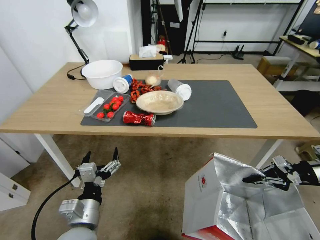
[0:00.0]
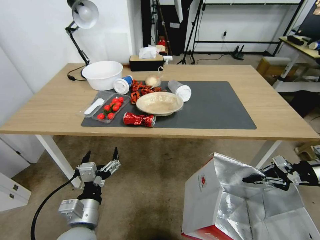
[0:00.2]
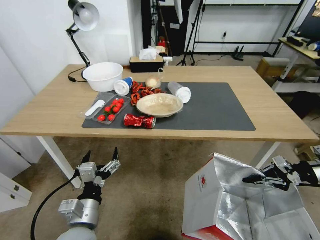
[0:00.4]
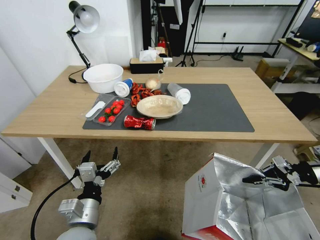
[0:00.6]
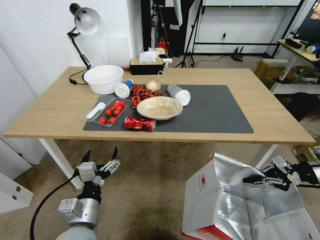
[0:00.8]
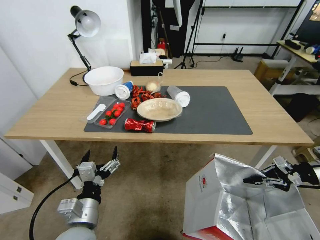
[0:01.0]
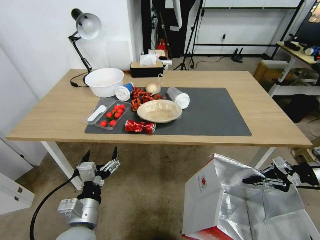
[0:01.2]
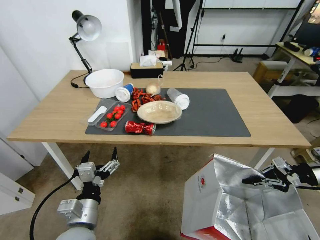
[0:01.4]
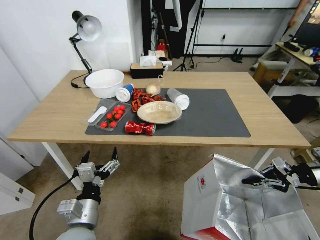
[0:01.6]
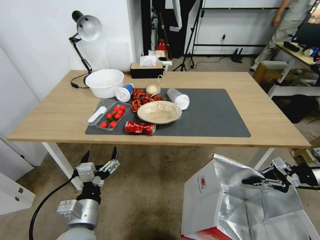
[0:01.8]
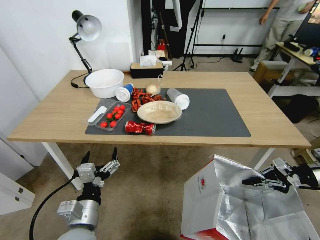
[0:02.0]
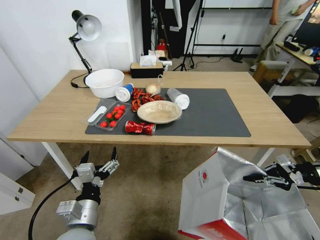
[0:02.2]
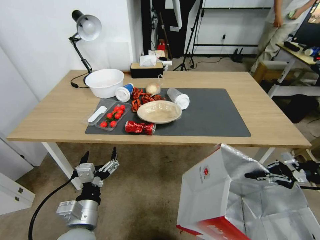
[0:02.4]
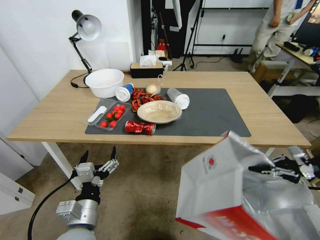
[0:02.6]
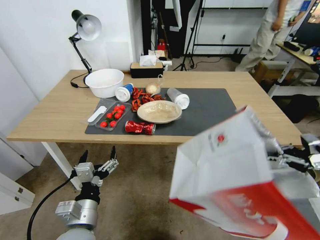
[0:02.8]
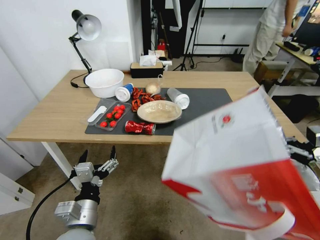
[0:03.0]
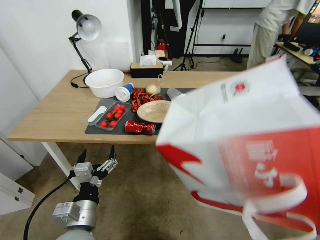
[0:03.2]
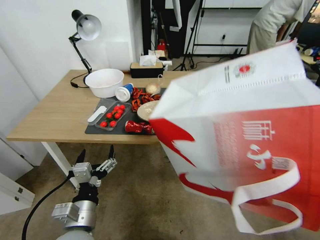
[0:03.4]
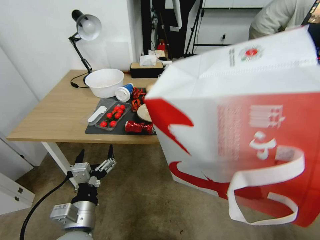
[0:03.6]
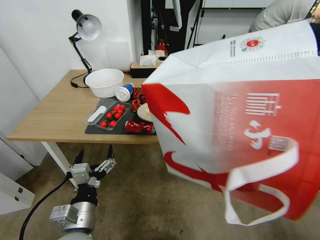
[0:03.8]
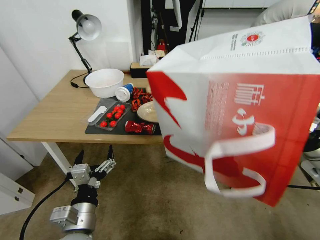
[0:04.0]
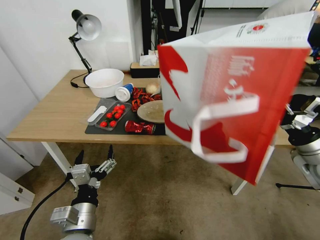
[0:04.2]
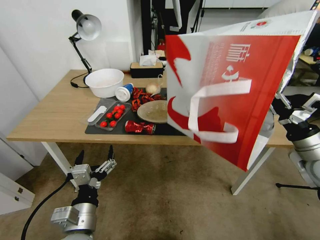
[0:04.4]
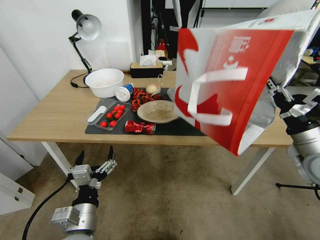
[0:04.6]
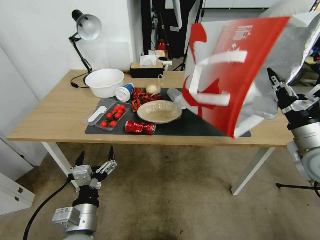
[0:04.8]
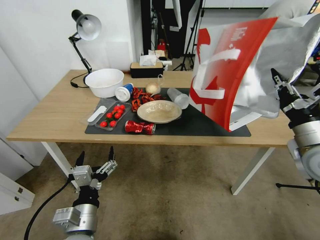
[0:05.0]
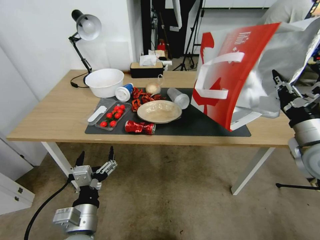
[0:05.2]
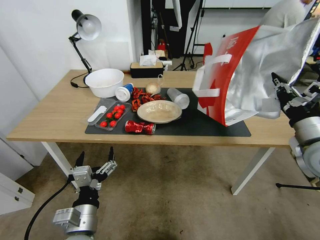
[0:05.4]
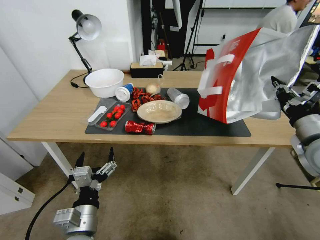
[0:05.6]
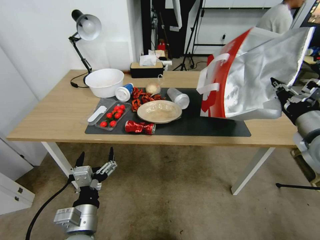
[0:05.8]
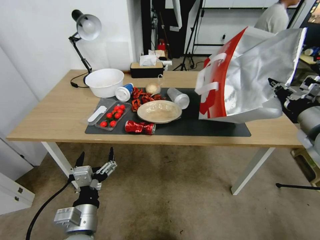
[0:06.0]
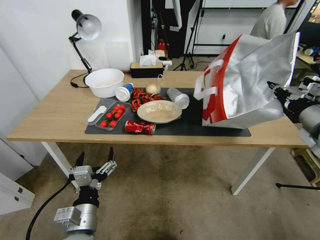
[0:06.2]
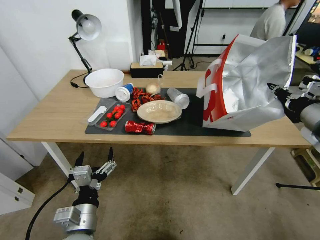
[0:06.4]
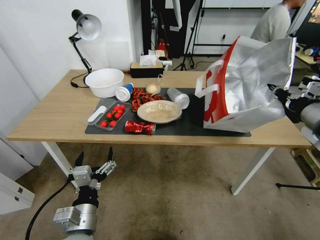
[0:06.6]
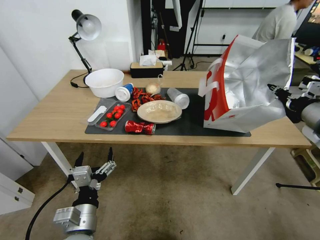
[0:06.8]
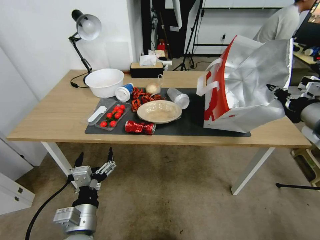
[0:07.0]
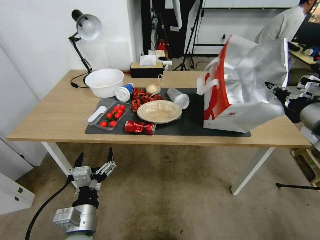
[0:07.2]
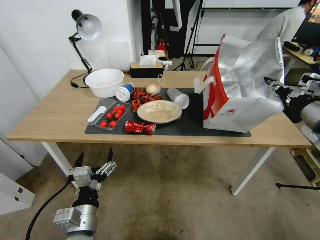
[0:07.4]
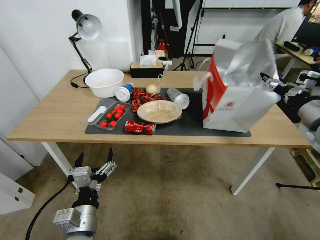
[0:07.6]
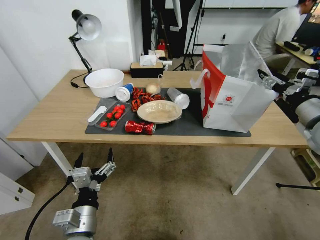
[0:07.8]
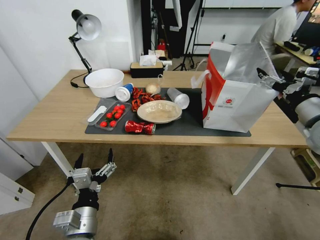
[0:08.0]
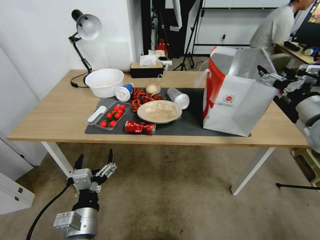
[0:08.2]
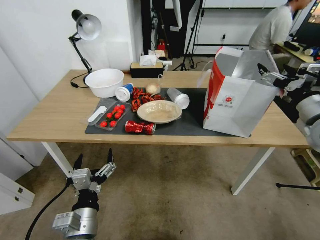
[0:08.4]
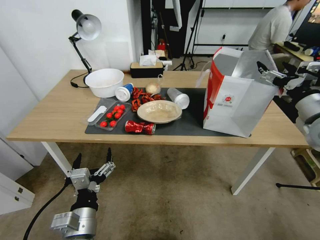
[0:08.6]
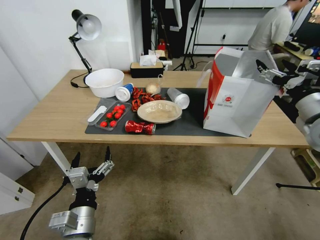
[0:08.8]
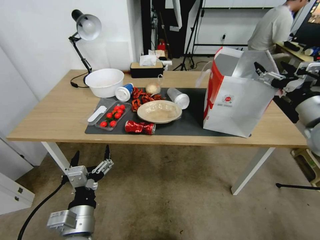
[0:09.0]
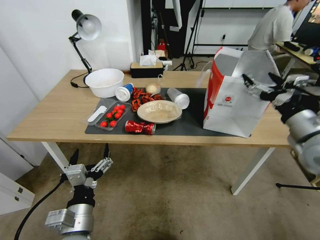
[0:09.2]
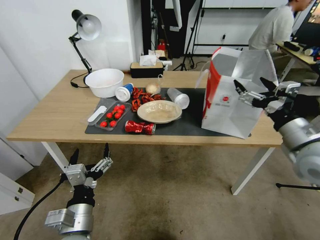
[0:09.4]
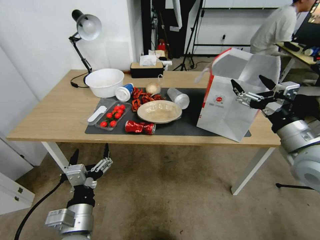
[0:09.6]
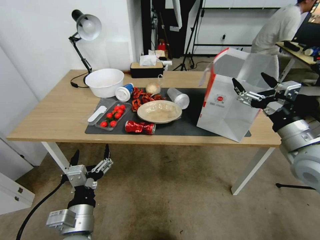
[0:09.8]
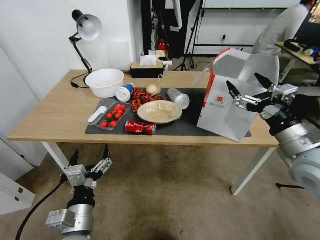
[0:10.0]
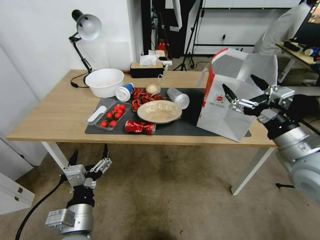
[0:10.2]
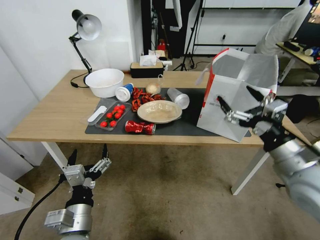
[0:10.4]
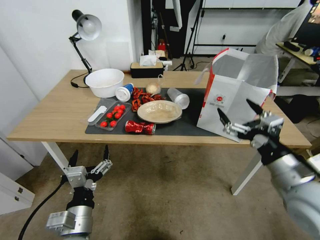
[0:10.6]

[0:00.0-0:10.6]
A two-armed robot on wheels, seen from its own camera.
Task of the whole recording: Pick up the food delivery bag from the floor and place it on the table.
0:03.0 to 0:04.6: The right gripper goes some 15 cm to the left.
0:04.6 to 0:06.0: The right gripper moves upward, some 10 cm.
0:06.0 to 0:07.6: The right gripper opens its fingers.
0:07.6 to 0:09.0: The right gripper opens.
0:09.0 to 0:10.6: The right gripper shifts some 15 cm backward, to the left and downward.

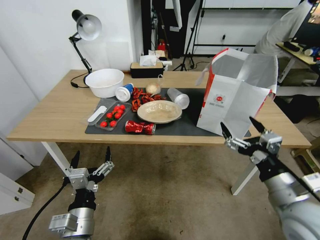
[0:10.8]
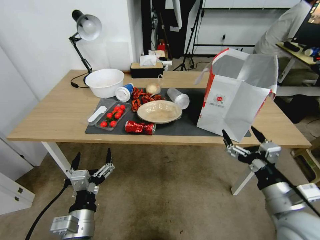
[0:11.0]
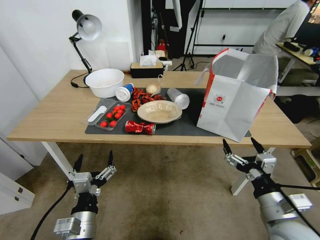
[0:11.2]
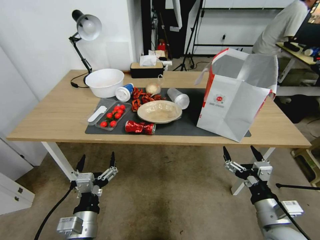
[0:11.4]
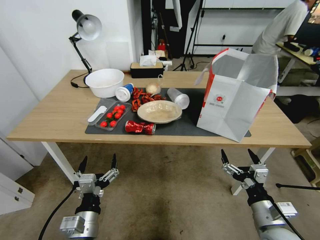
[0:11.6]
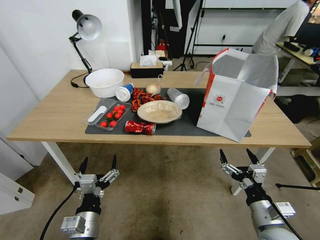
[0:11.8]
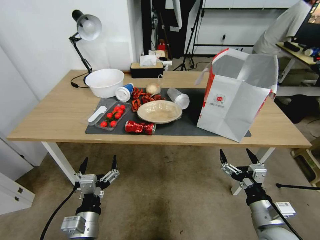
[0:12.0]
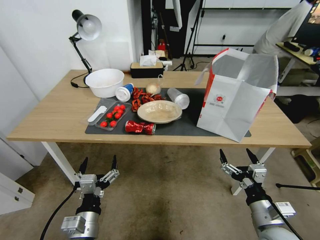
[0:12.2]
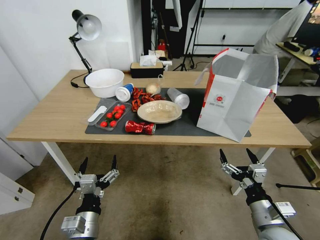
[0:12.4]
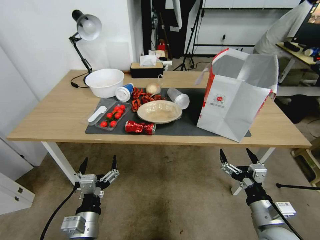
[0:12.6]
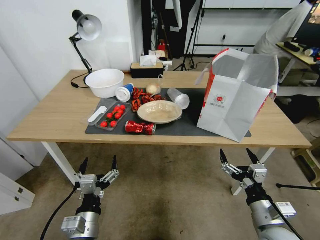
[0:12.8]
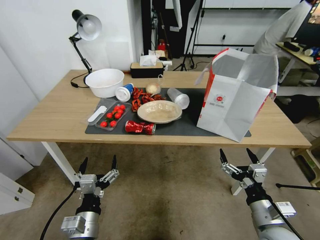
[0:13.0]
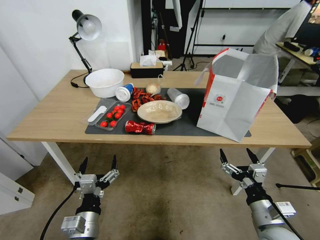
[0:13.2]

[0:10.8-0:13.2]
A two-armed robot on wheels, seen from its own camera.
Task of the whole recording: Pick up the food delivery bag from the floor and place it on the table.
0:10.8 to 0:12.0: The right gripper is displaced downward by approximately 10 cm.
0:12.0 to 0:13.2: The two grippers keep their place.

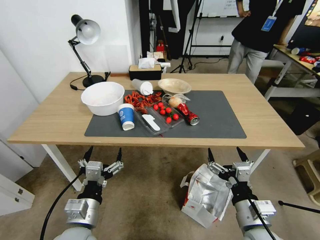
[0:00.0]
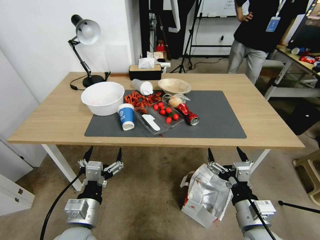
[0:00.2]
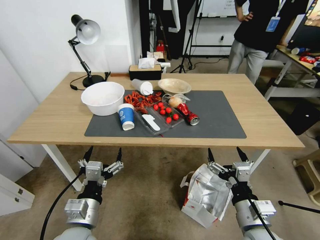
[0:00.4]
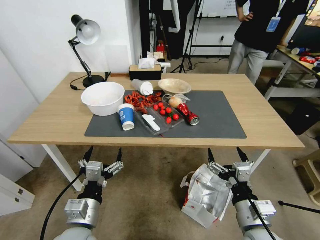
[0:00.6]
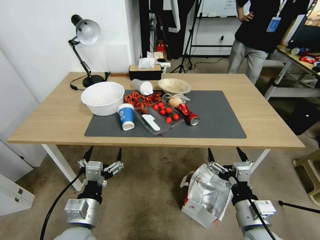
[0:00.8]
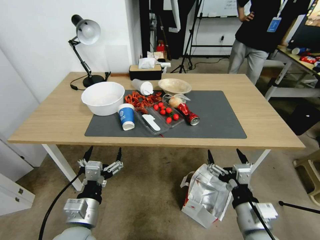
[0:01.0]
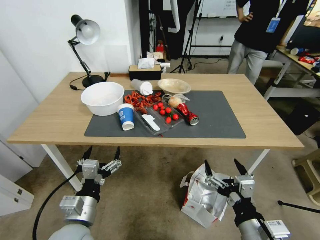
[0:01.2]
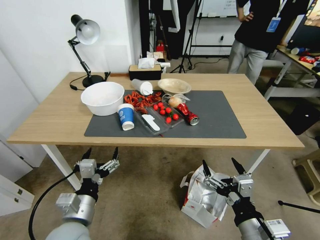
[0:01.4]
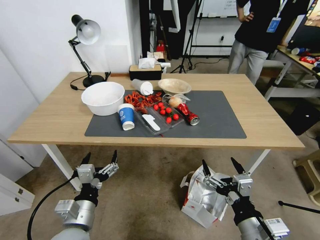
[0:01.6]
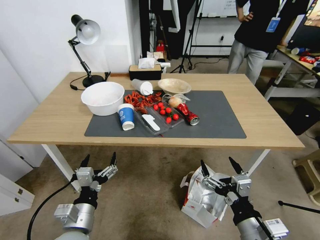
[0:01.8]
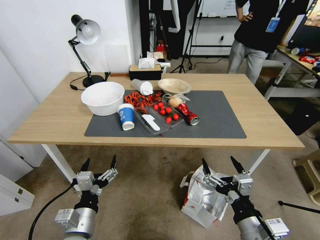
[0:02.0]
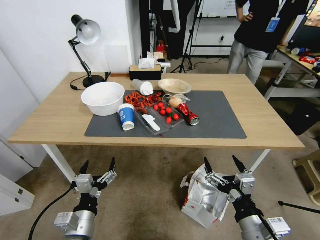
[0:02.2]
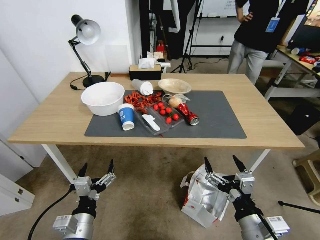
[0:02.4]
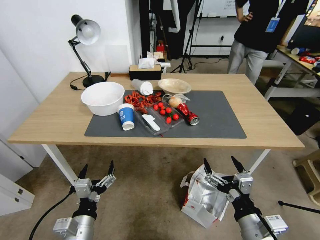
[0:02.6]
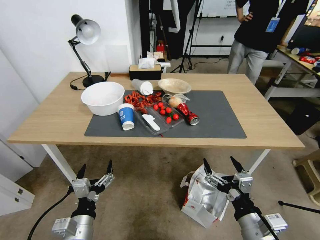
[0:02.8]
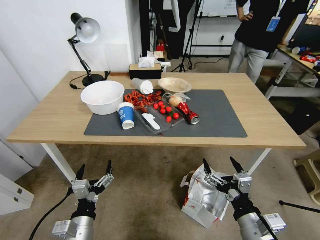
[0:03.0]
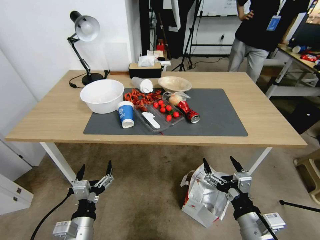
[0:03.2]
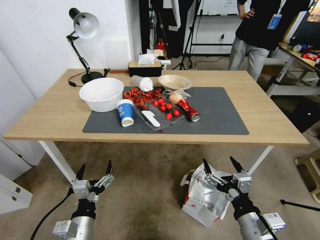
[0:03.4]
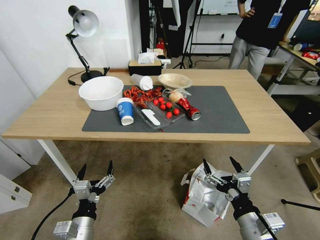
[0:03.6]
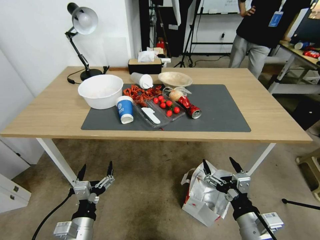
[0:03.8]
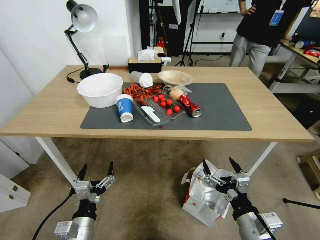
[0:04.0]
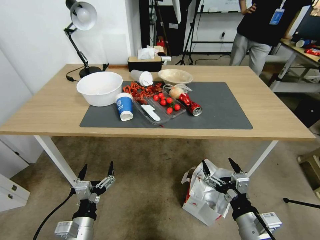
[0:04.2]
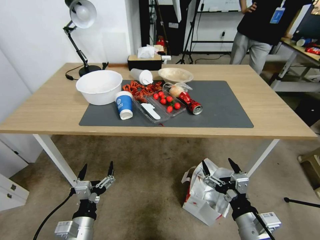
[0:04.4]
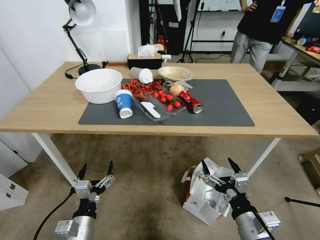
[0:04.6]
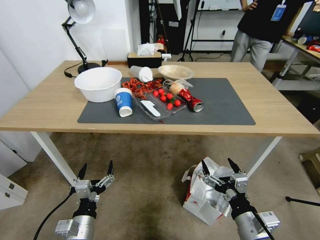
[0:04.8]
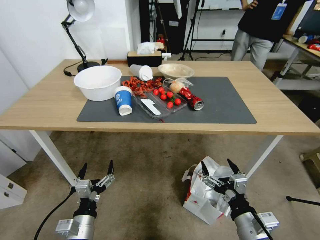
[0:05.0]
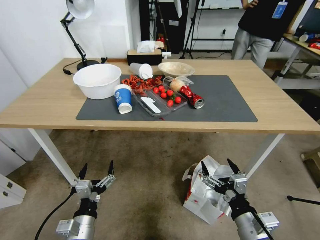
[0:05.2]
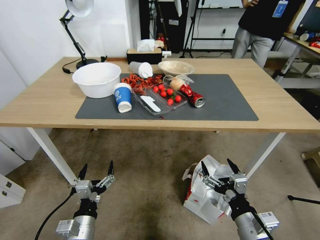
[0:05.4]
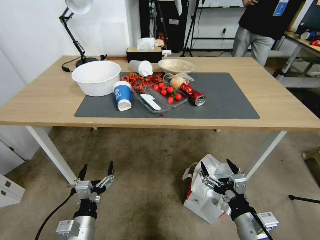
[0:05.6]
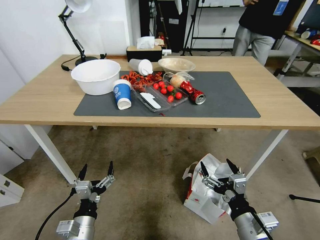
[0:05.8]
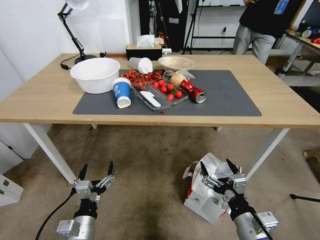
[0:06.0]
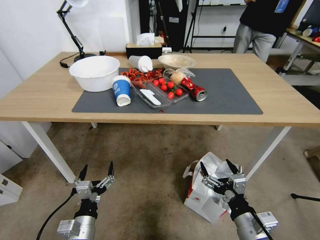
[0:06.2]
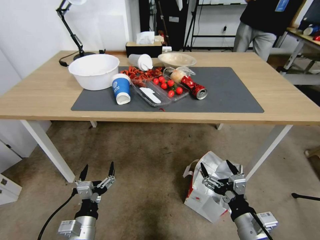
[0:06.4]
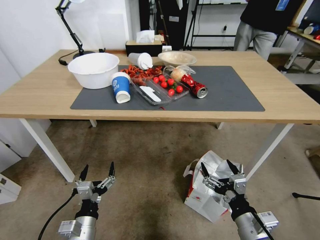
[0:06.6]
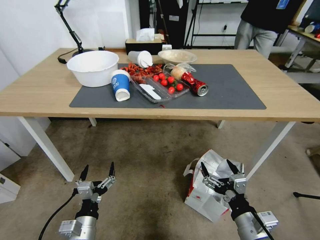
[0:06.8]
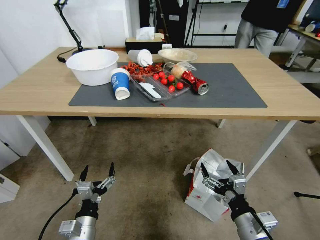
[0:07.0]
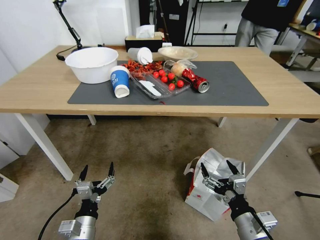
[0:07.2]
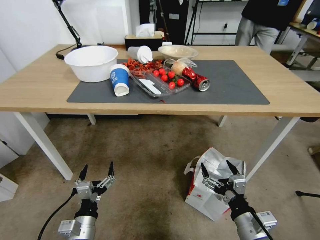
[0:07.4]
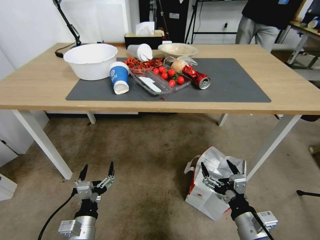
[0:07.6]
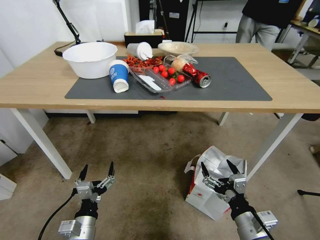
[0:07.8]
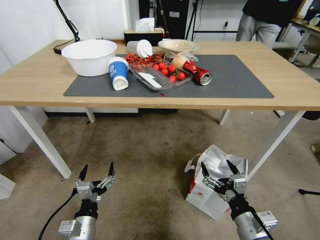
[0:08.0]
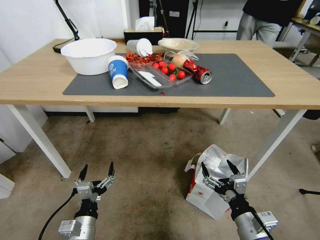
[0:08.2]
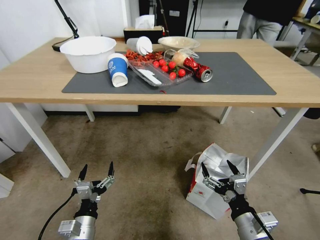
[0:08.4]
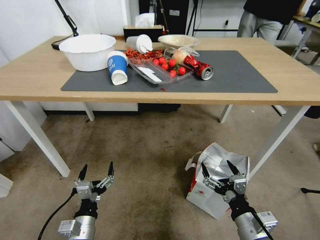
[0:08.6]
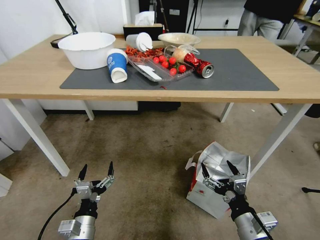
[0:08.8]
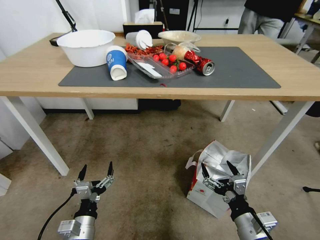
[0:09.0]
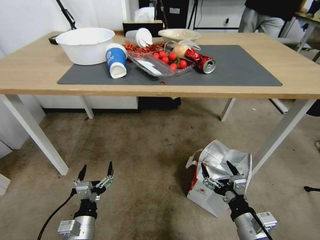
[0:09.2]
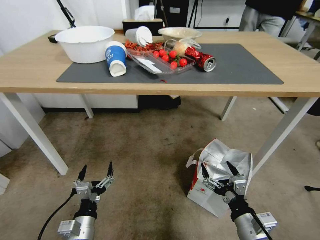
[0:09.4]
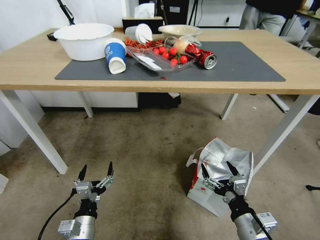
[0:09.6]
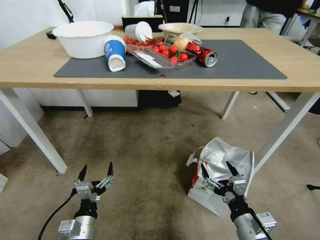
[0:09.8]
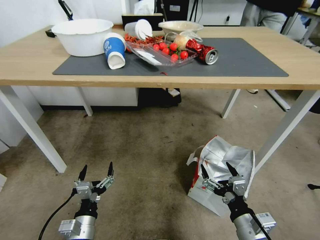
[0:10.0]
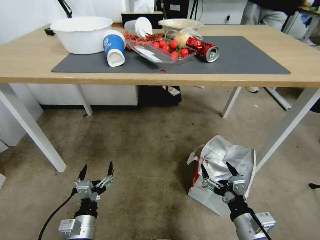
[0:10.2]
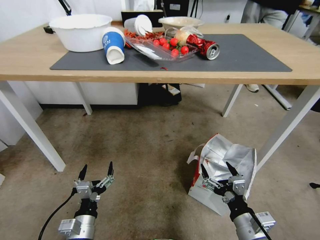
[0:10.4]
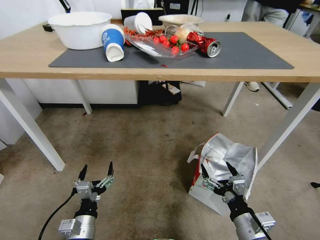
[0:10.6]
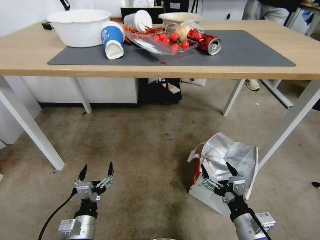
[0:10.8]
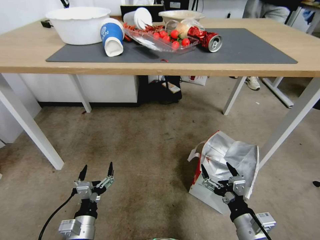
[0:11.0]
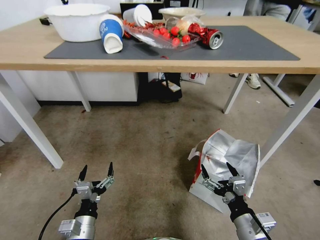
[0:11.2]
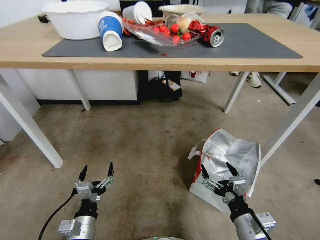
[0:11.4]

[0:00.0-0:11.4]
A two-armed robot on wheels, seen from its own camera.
Task of the whole recording: Pick up the food delivery bag from the floor and place it on the table.
0:01.4 to 0:02.8: The left gripper goes some 5 cm downward.
